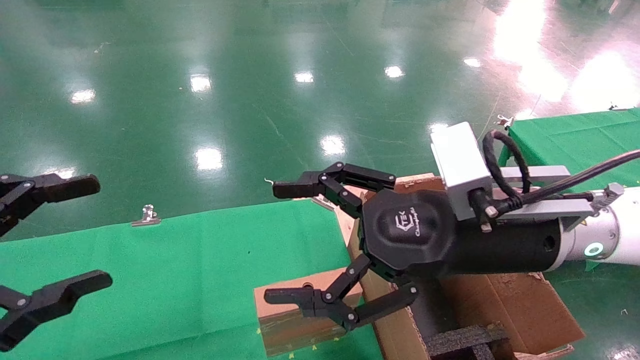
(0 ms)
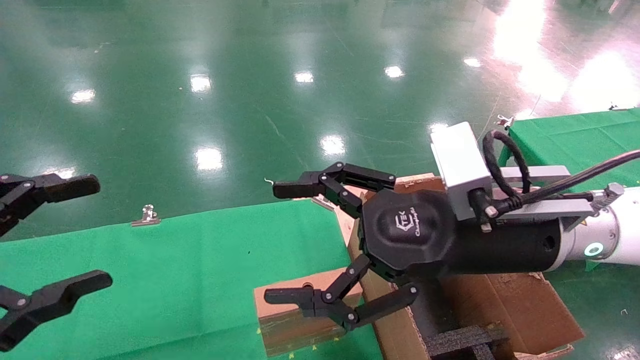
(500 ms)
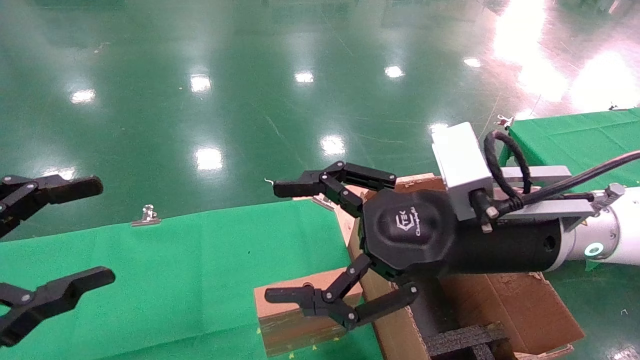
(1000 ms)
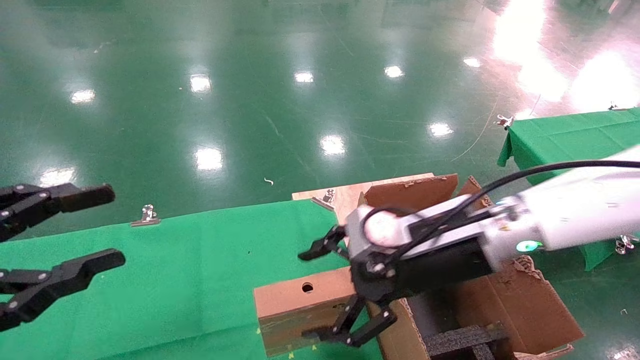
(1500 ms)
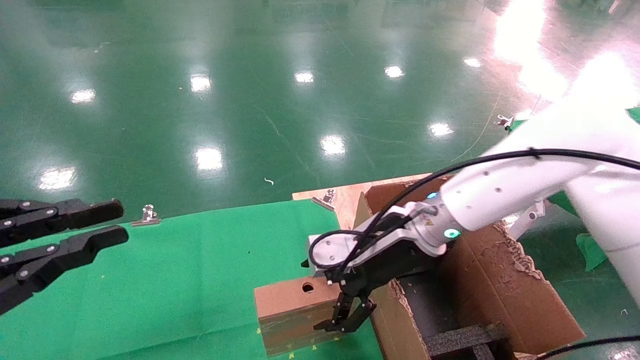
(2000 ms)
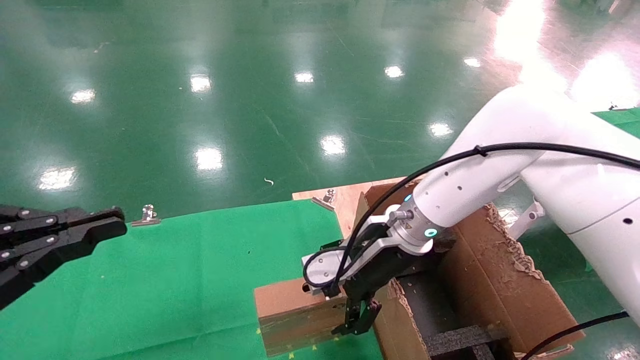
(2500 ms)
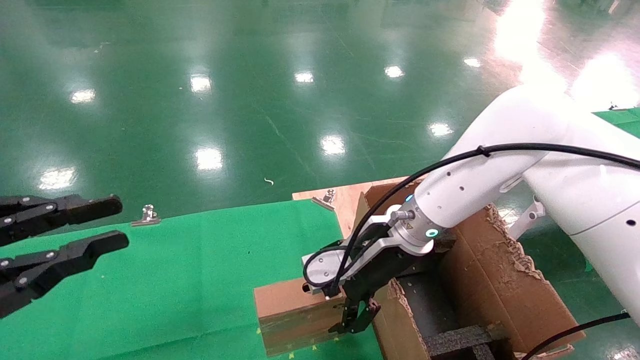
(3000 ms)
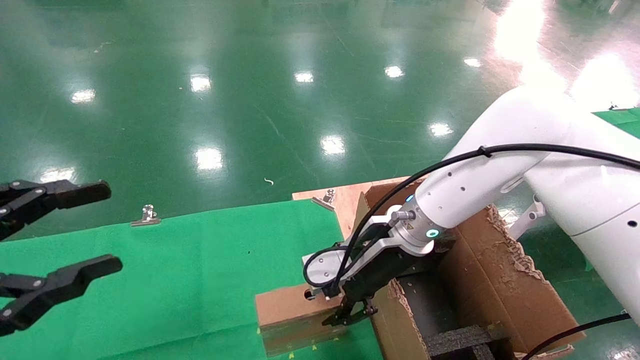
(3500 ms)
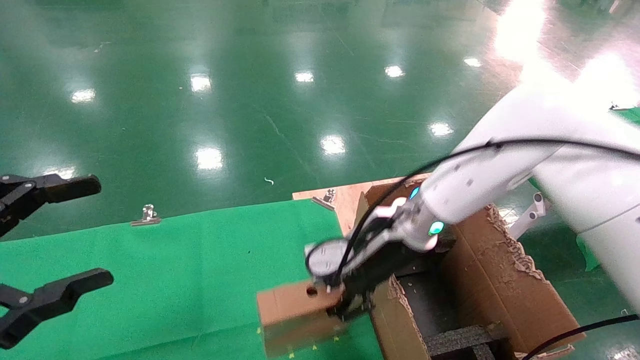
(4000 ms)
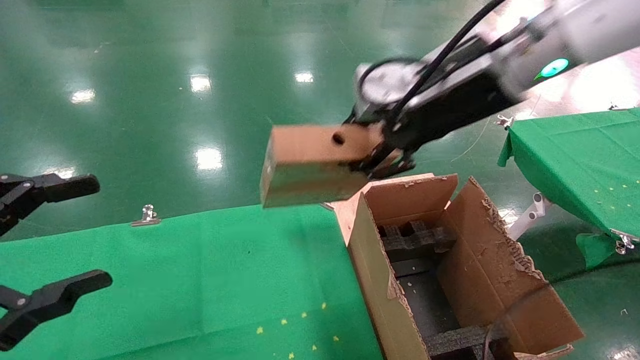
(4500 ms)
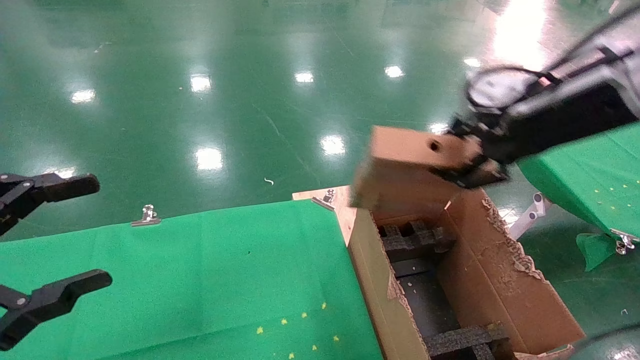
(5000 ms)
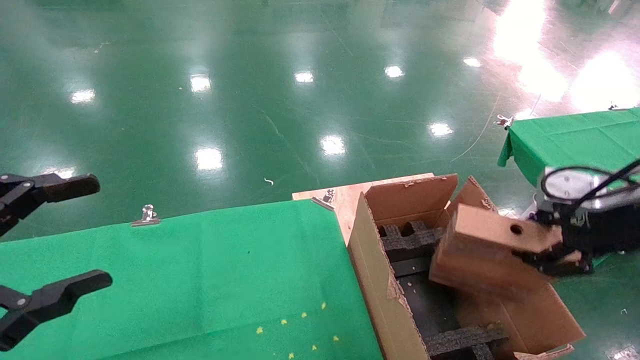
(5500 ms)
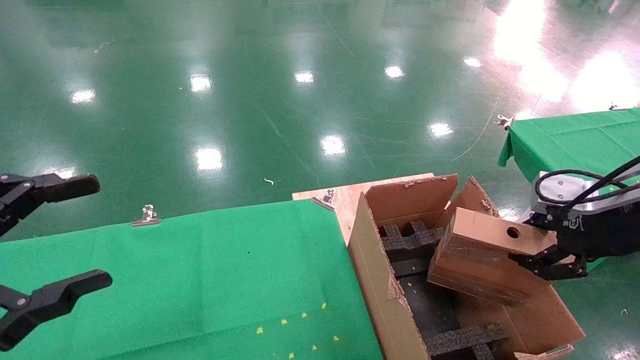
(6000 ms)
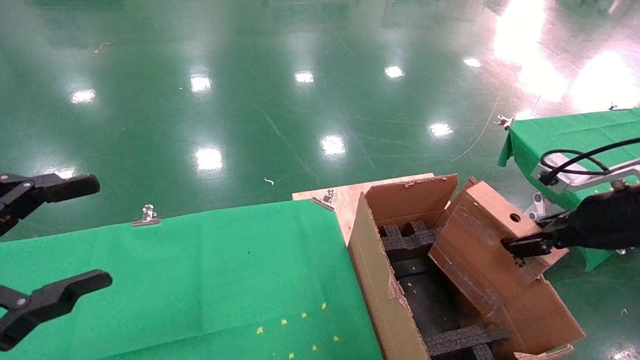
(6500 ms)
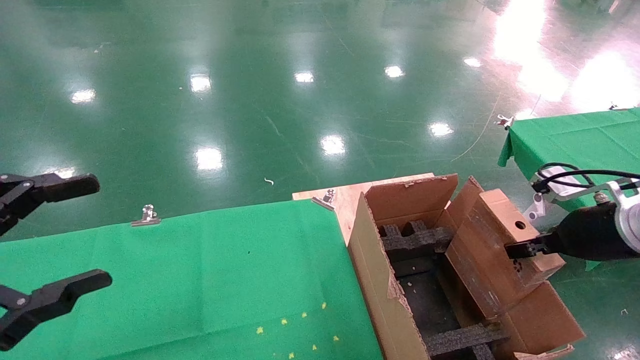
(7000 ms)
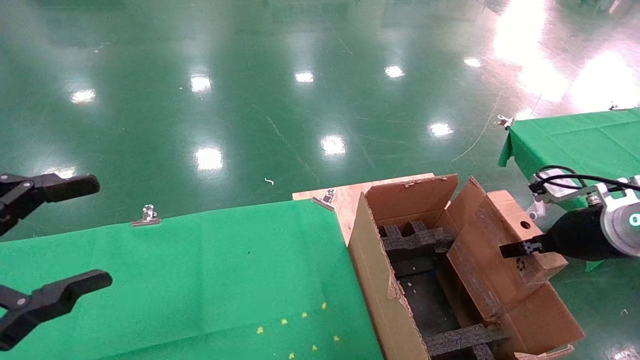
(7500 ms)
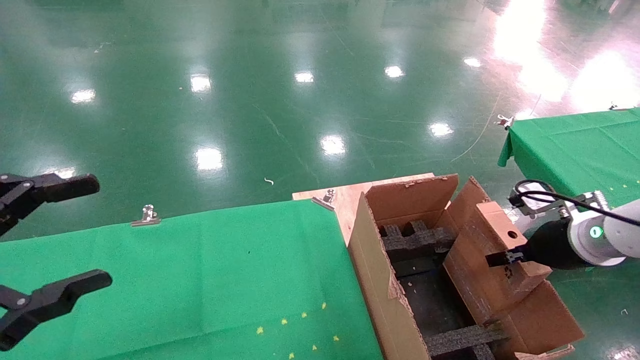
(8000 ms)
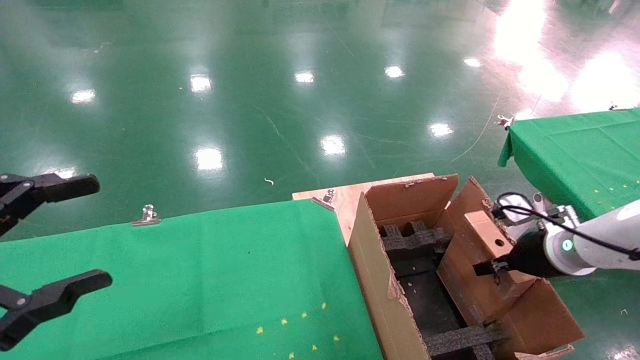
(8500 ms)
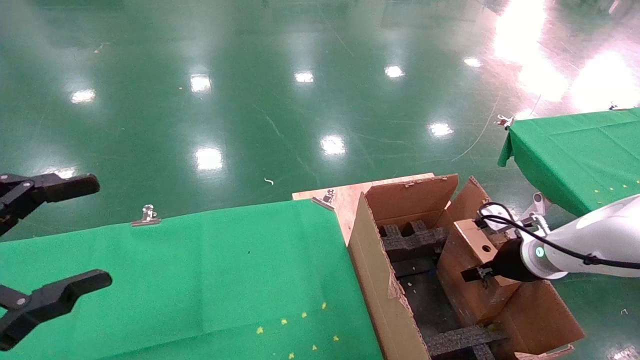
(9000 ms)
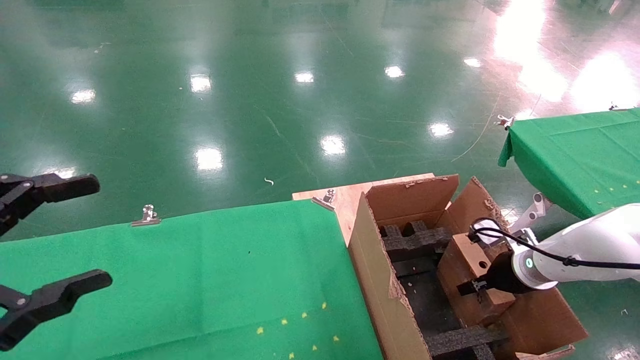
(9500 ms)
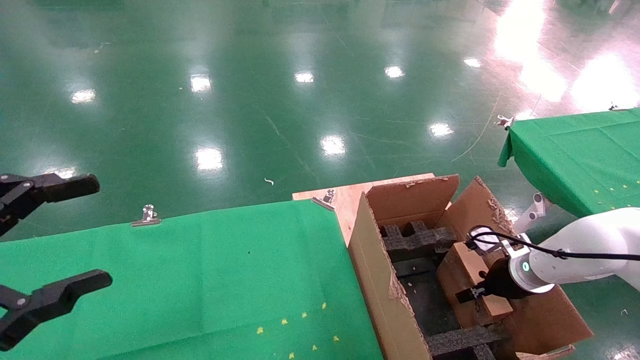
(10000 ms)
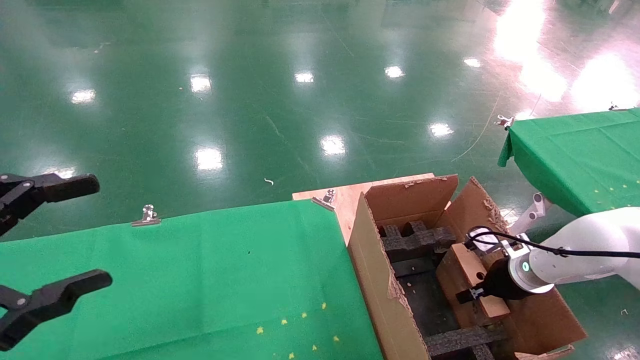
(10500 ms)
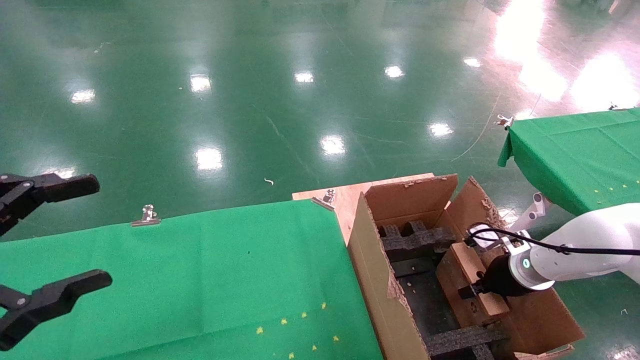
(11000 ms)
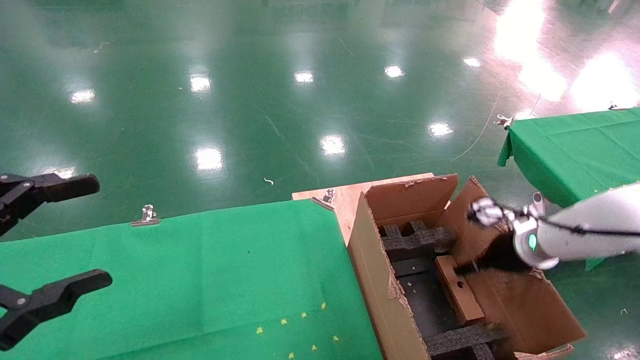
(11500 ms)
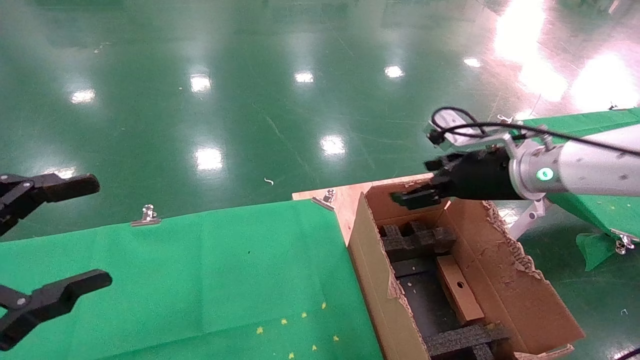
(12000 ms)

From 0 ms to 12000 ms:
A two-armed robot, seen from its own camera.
Task of the whole recording: using a robotic arm to pick up a cardboard box and palace it the carton.
Step, from 1500 ms to 3500 ms: Pick up the mouse and the power cord paper box.
Step, from 4000 ms to 11500 ms: Place the mouse and the power cord paper box into the container.
From 0 ms to 2000 ms: The left gripper closes up. The right gripper is displaced forward and downward by about 15 cm.
From 2000 ms to 4000 ms: The left gripper opens. Meanwhile the right gripper closes up.
From 4000 ms to 6000 ms: The right gripper shifts about 30 cm to the right and backward.
From 6000 ms to 8000 ms: The right gripper moves downward and forward, roughly 15 cm.
From 8000 ms to 10000 ms: The right gripper goes about 15 cm downward and forward.
From 10000 ms to 12000 ms: The right gripper heads upward and to the left, covering roughly 25 cm, and opens.

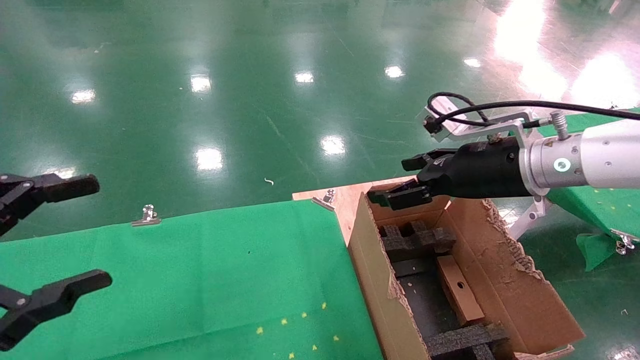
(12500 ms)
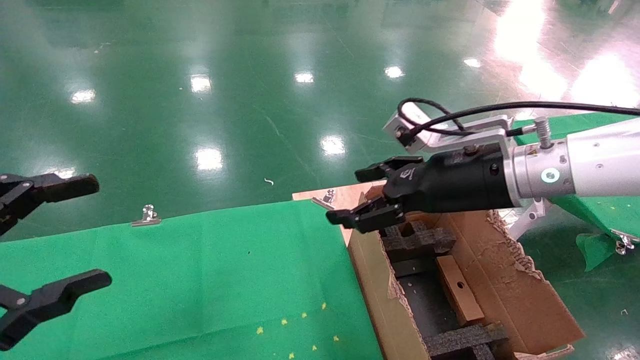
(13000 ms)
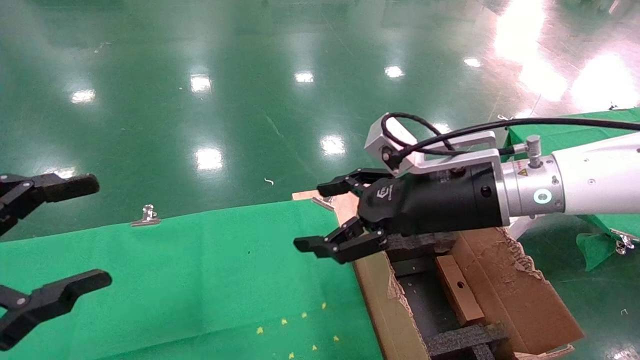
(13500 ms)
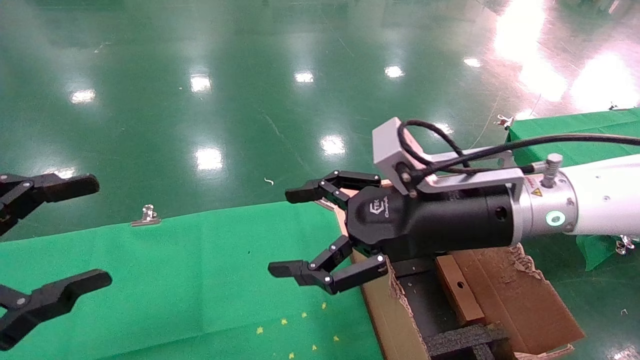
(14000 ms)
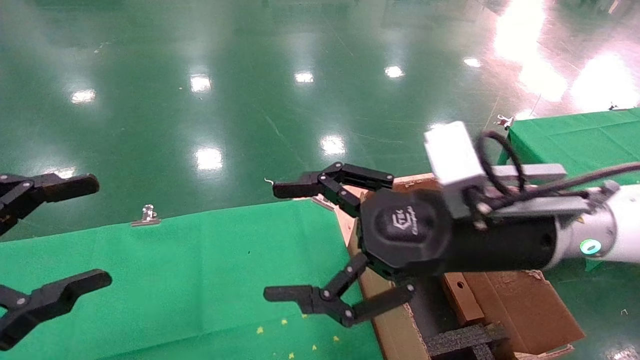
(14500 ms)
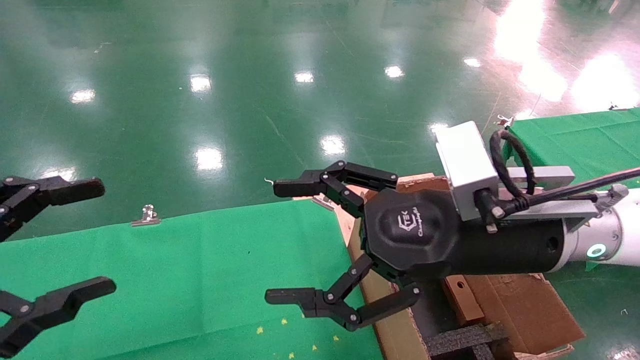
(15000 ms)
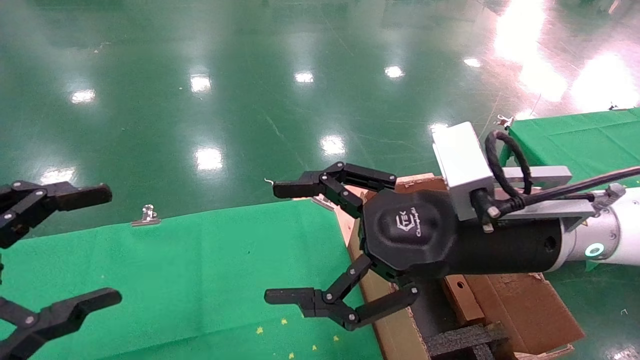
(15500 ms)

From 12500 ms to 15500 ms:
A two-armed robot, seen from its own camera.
Task of the whole recording: using a robotic arm to pick up a cardboard box and palace it the carton.
From 12500 ms to 14000 ms: The right gripper shifts about 10 cm to the left and backward.
